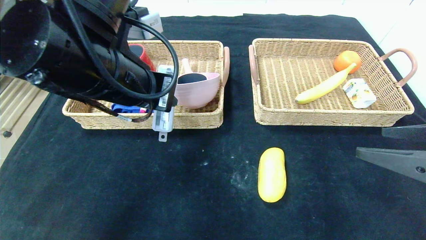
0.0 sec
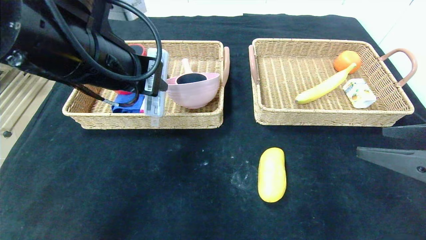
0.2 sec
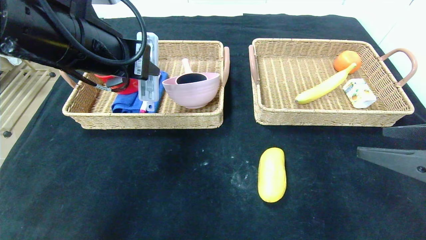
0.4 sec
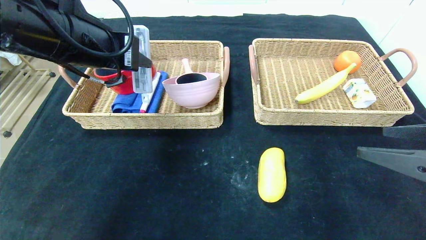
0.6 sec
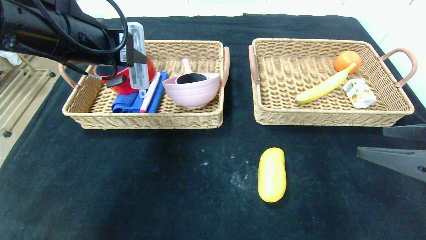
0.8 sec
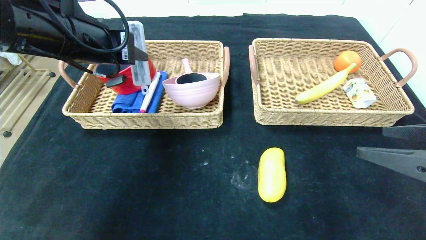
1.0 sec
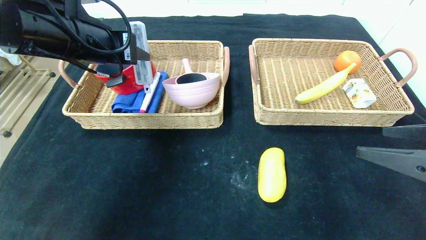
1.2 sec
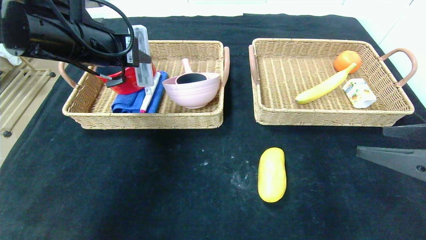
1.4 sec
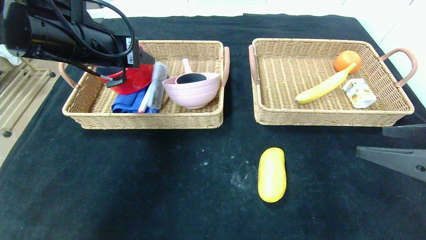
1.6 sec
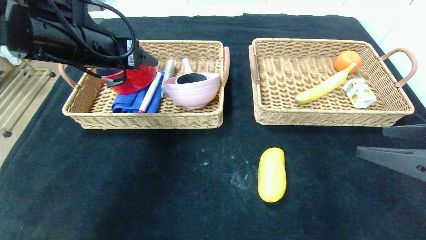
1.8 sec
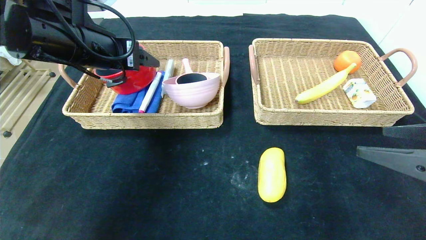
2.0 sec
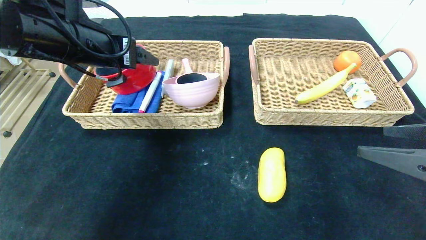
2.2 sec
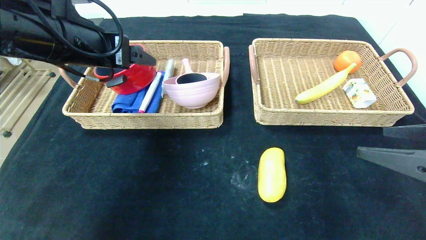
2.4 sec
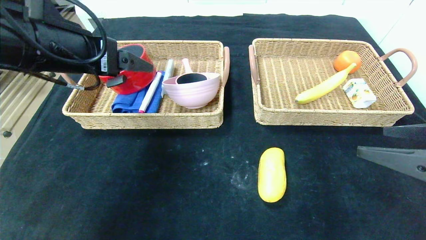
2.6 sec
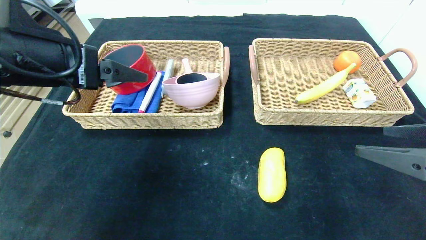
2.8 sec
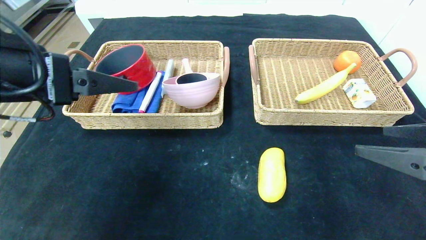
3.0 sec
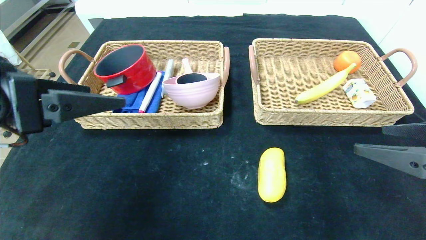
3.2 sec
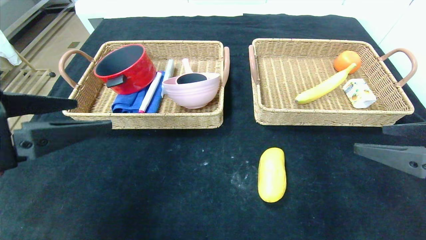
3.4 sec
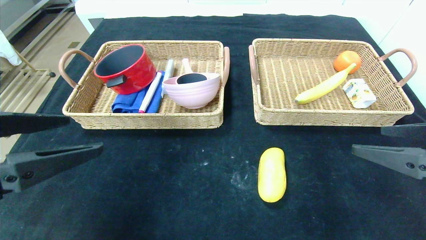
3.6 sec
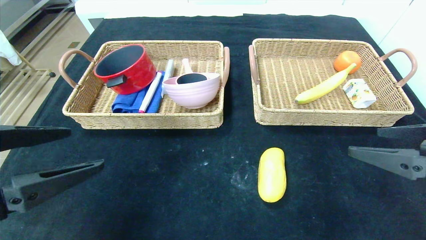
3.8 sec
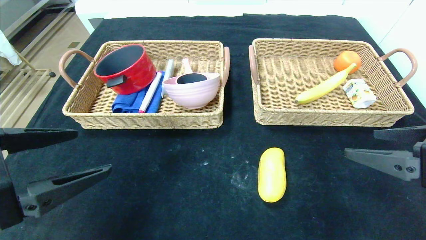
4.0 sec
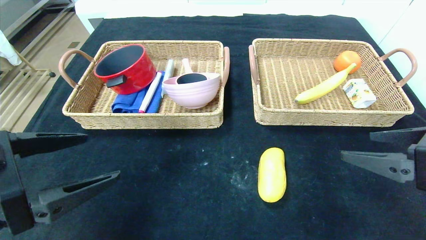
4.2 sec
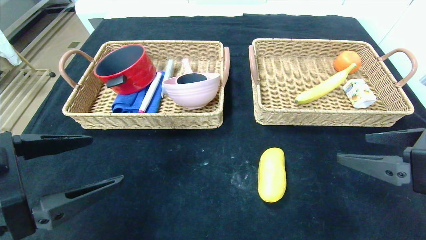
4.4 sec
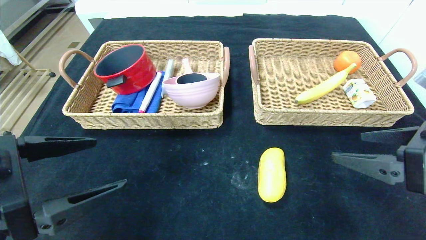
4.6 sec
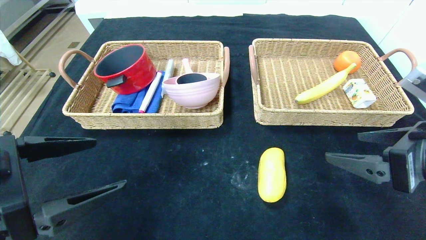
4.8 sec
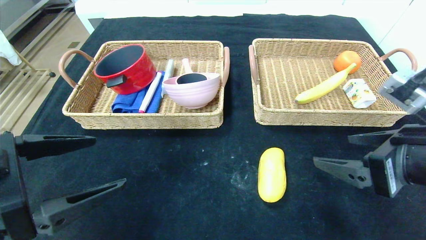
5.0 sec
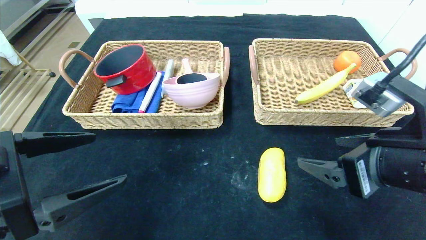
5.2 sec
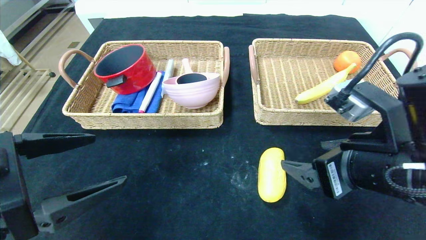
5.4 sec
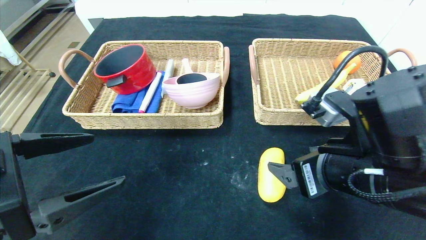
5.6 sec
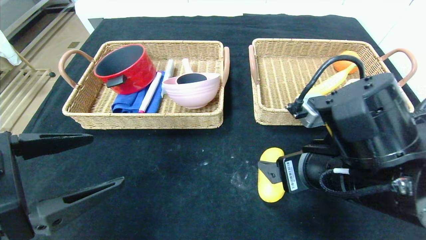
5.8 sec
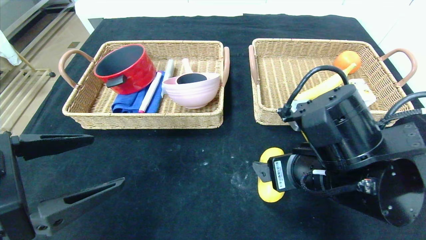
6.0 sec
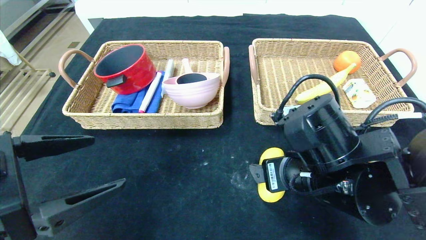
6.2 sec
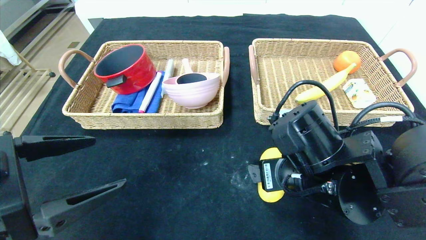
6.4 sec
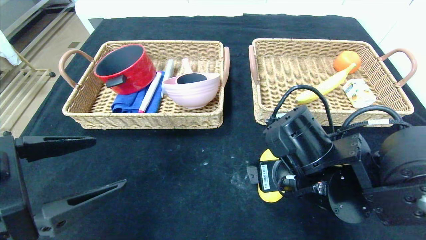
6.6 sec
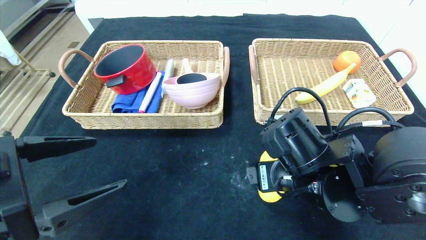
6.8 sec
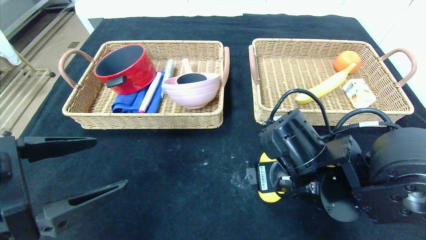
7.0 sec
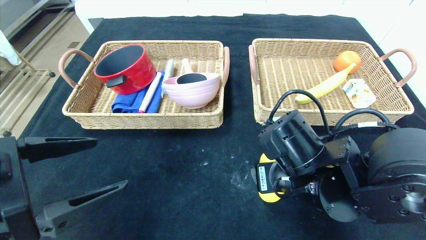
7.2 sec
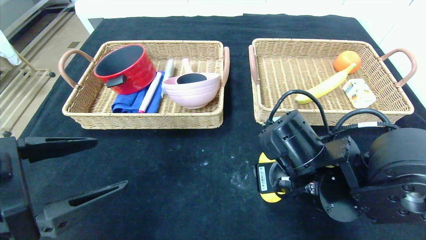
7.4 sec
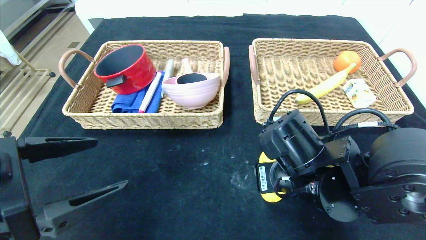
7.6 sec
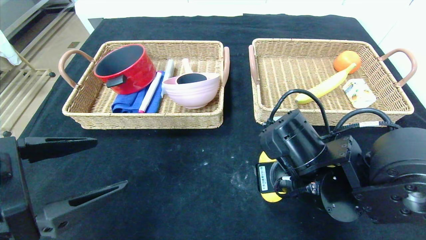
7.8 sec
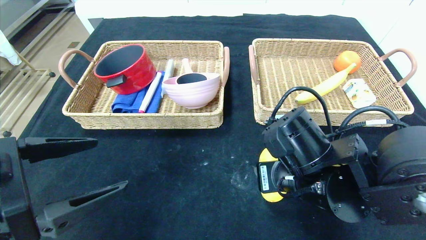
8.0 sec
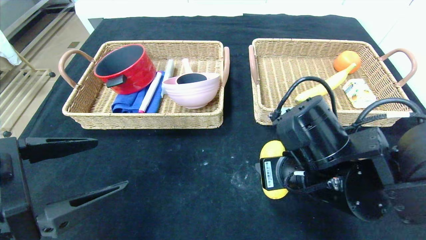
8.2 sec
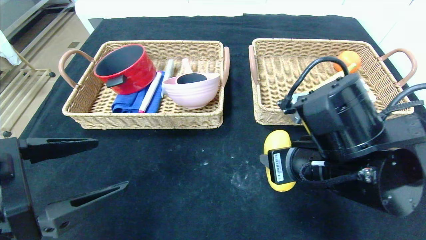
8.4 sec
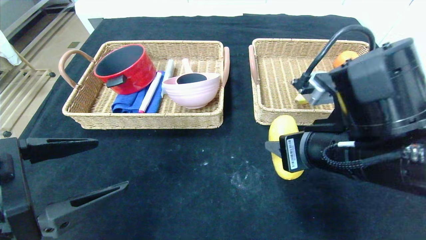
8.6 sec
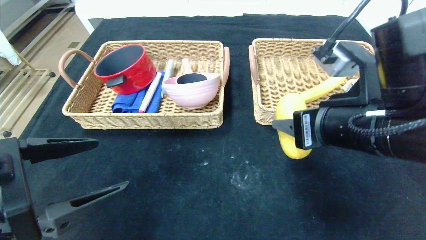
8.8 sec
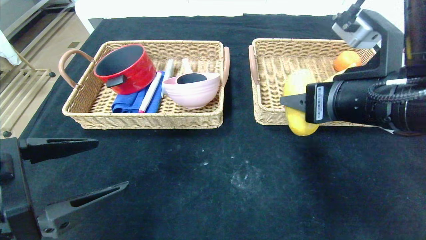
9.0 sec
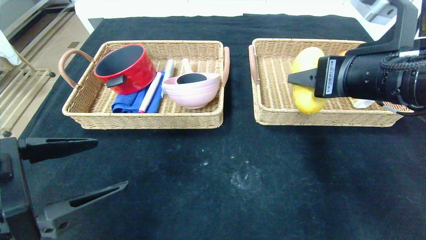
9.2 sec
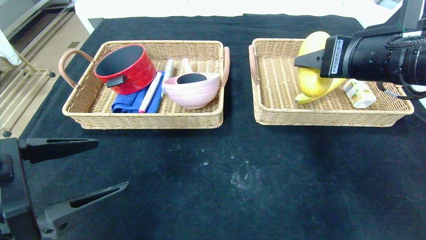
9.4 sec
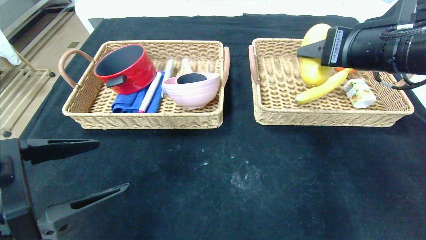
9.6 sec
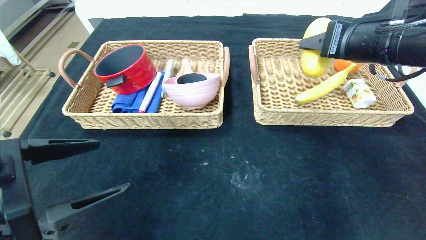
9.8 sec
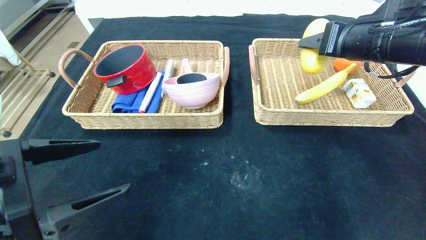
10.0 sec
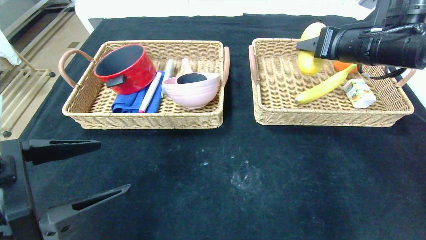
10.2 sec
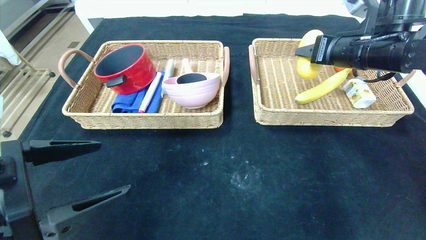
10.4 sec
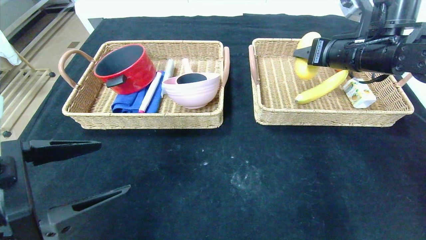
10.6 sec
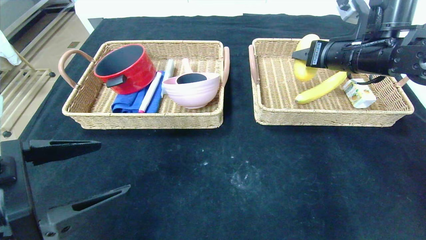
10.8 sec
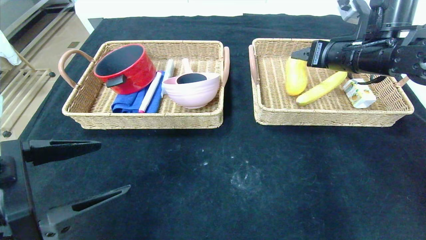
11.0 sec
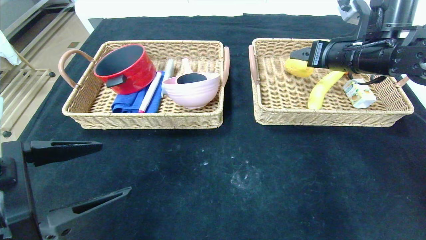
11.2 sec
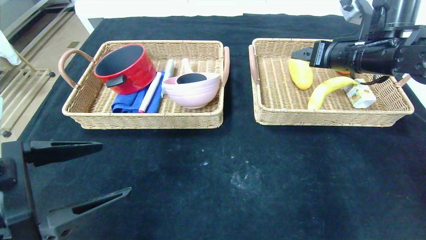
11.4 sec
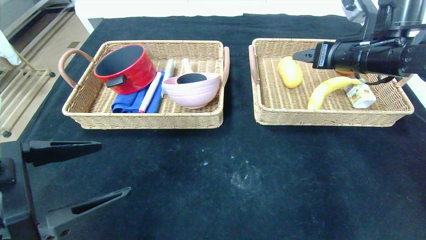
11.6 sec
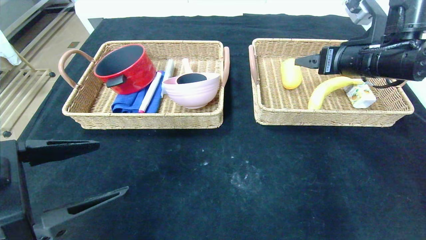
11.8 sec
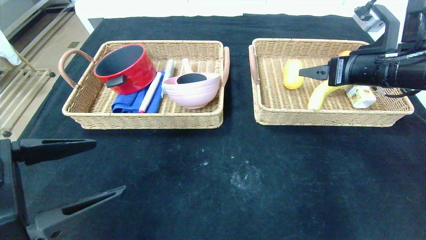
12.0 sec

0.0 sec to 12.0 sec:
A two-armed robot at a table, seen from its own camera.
Step, 0.0 sec to 2.0 sec: Grasp the compass and put it in the left basket.
Step, 2.2 sec to 11.0 sec: Grasp the mango and put it in the right basket.
0.0 sec to 1.6 sec: The left gripper is displaced to the left and forward by roughly 10 cm.
1.6 sec to 3.0 sec: The left gripper goes some 15 cm backward, and opens its fingers.
3.0 sec to 4.4 sec: The left gripper travels downward and backward by roughly 10 cm.
4.4 sec to 6.0 sec: The right gripper travels to the left by approximately 15 cm.
6.0 sec to 7.6 sec: The right gripper closes up.
7.6 sec to 9.0 sec: The right gripper goes approximately 15 cm upward and to the right.
9.0 sec to 10.4 sec: The right gripper shifts roughly 15 cm forward and to the right.
10.4 sec to 12.0 sec: The right gripper shifts by approximately 5 cm, and opens.

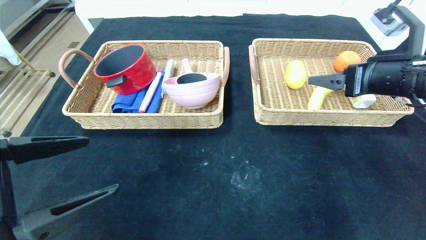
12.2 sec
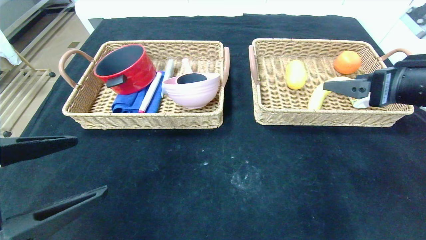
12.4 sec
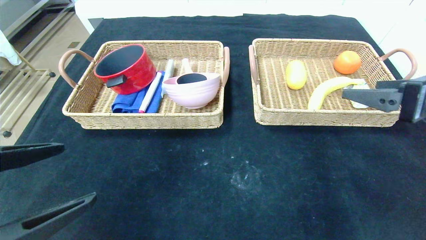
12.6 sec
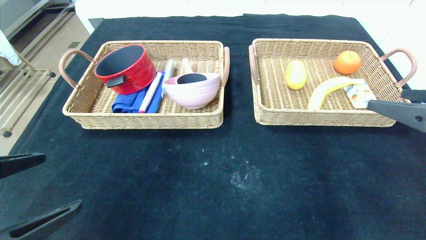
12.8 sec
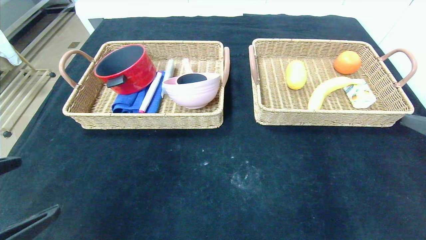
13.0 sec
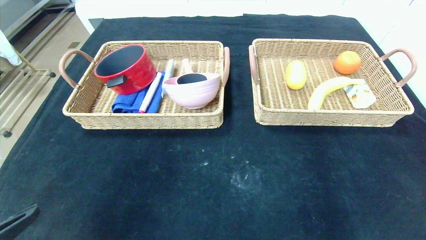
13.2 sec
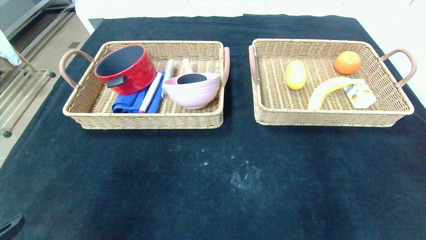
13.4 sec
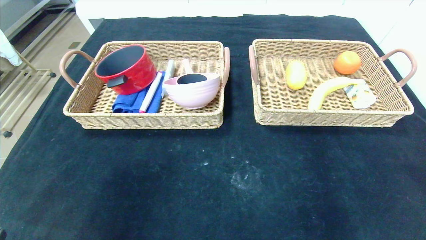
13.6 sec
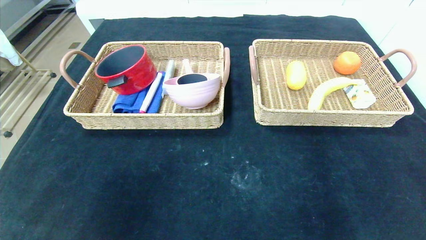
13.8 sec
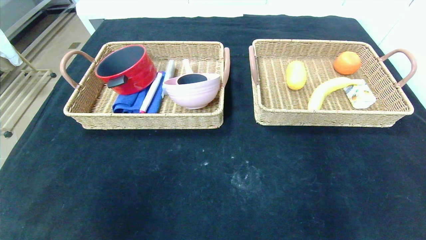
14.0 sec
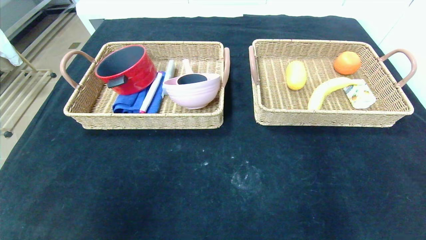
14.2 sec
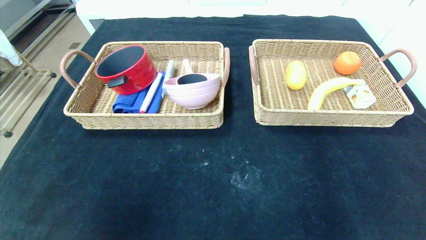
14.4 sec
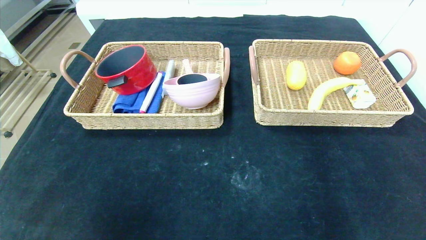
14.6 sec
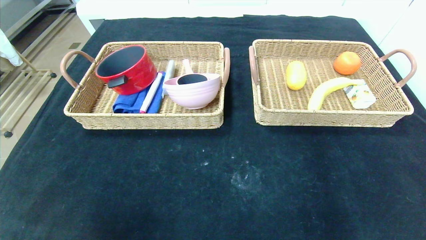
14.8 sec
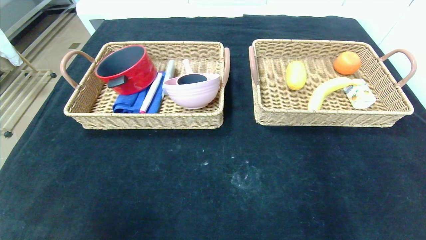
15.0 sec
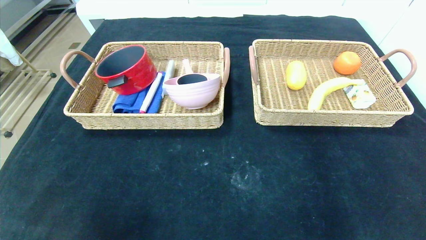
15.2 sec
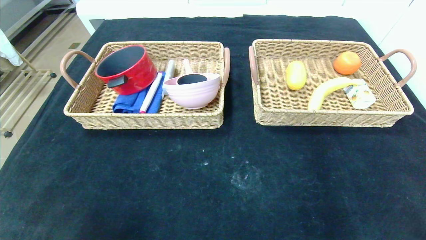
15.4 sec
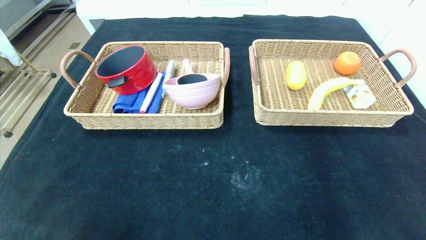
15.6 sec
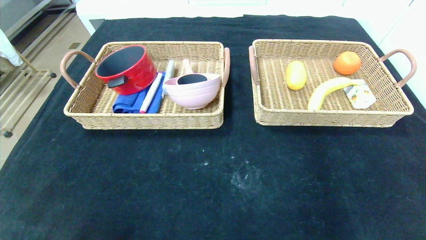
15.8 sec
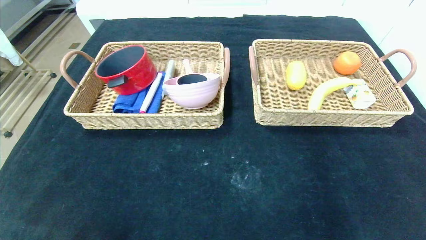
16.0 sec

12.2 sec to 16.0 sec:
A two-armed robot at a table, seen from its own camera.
12.2 sec to 13.4 sec: The right gripper goes roughly 25 cm backward. The left gripper travels backward by approximately 10 cm.
13.4 sec to 14.8 sec: Both grippers travel together backward and downward, some 10 cm.

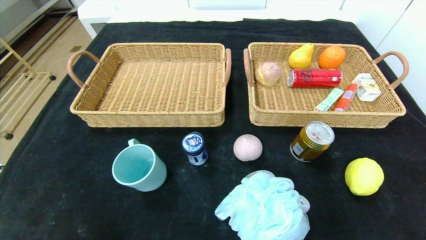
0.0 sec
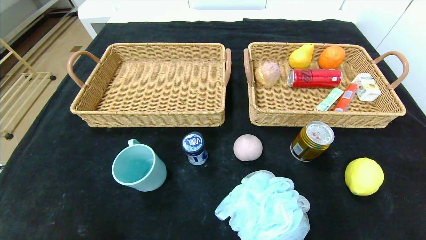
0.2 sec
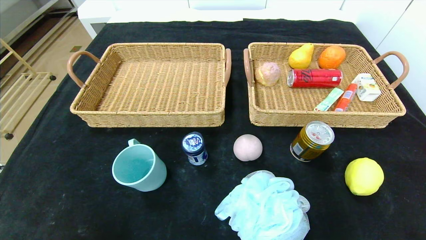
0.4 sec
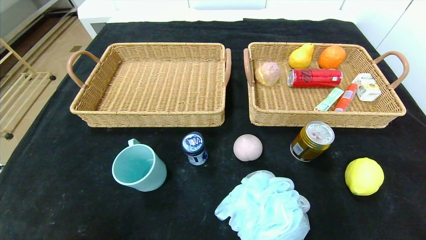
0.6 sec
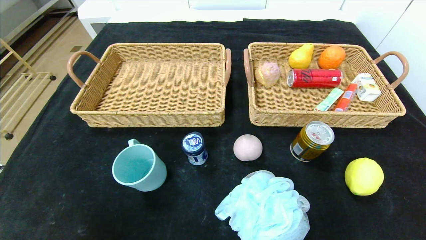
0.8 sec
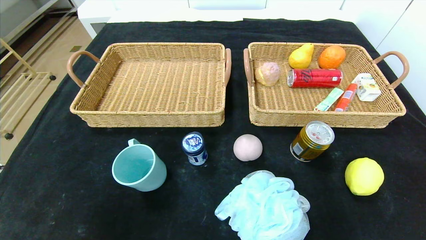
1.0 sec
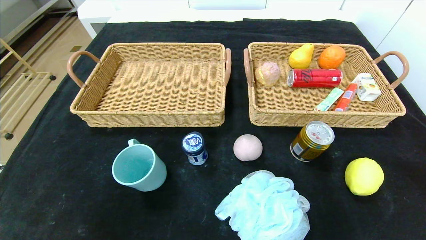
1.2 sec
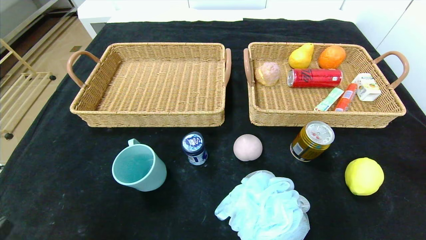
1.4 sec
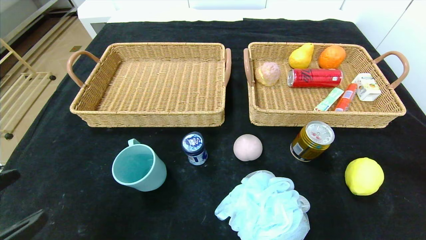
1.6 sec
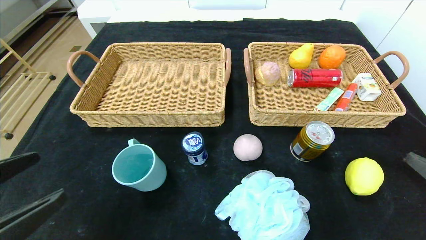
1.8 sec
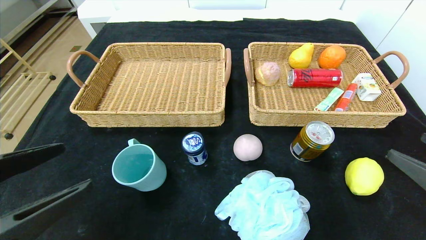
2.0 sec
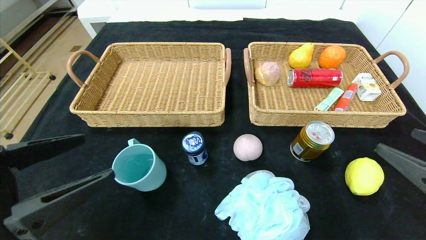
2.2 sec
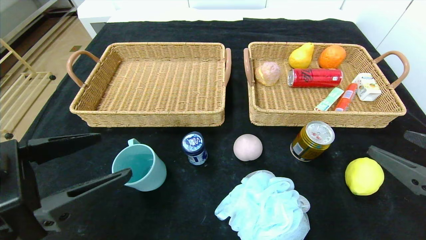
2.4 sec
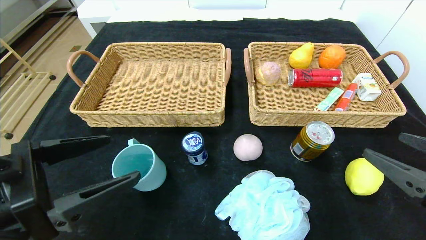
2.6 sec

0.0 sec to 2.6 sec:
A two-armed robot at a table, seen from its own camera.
1.2 sec to 2.6 sec: The right gripper goes some 10 cm forward. Meanwhile the left gripper heads forward and to the right, covering some 15 cm.
